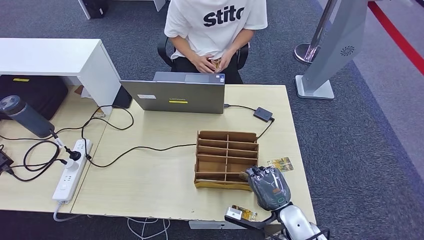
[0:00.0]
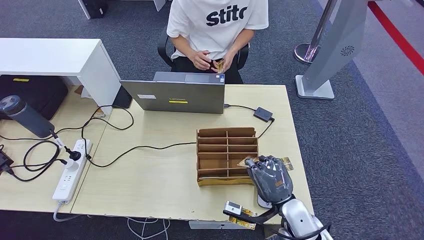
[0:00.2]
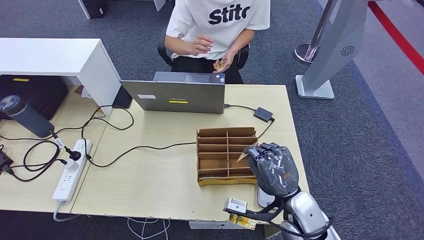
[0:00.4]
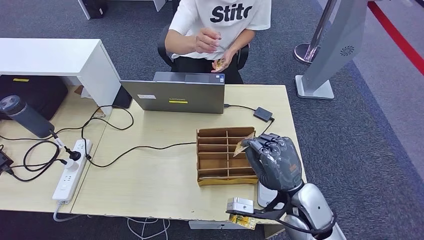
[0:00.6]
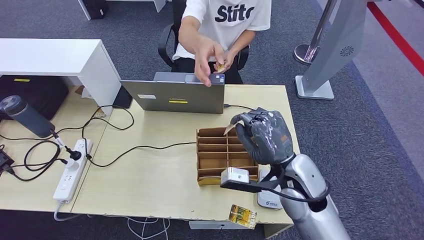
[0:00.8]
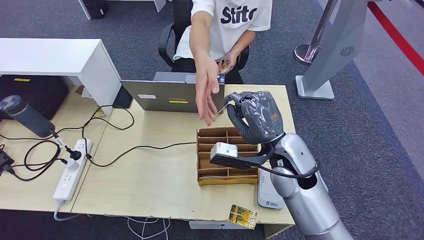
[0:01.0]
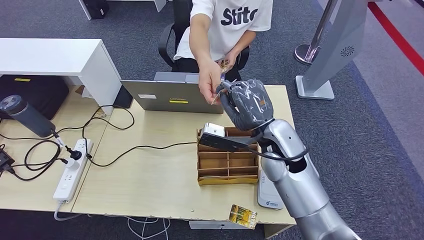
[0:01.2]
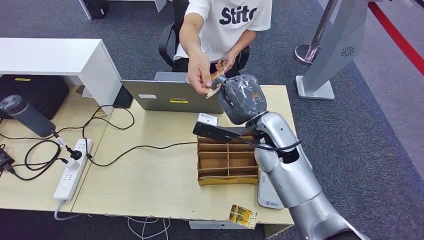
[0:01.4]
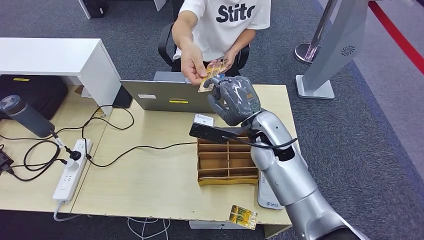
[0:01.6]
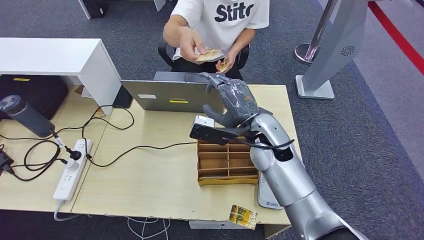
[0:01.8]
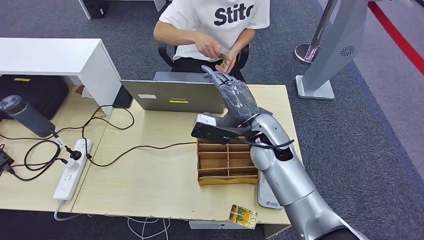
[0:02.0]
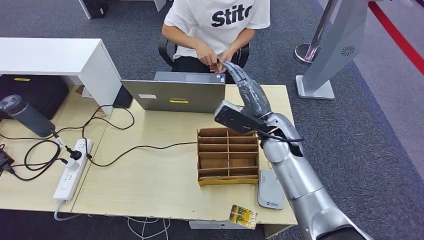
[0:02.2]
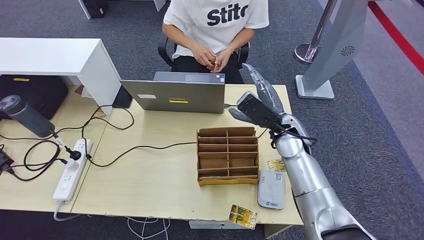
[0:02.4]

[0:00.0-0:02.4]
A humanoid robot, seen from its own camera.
Step, 0:00.4 to 0:02.4: Hand the room key to the person.
0:00.0 to 0:01.2: The right hand travels upward and forward by approximately 25 cm.
0:01.2 to 0:02.4: The right hand moves approximately 10 cm.
